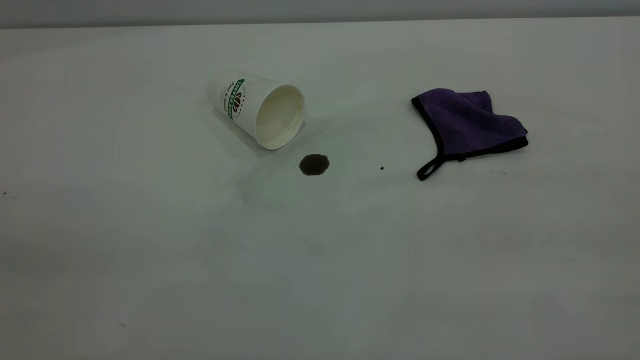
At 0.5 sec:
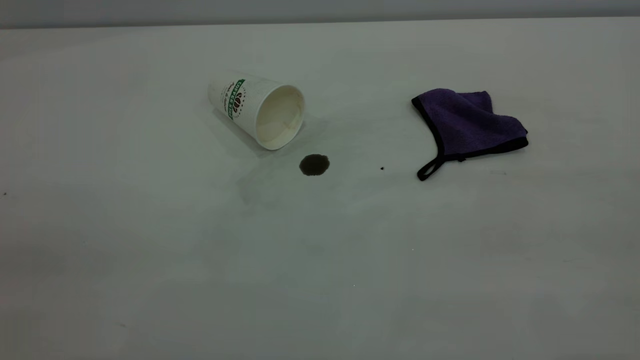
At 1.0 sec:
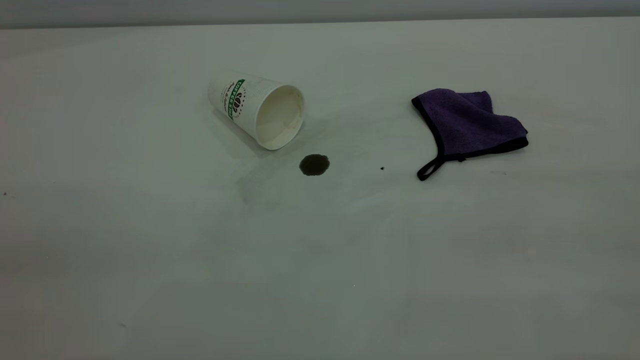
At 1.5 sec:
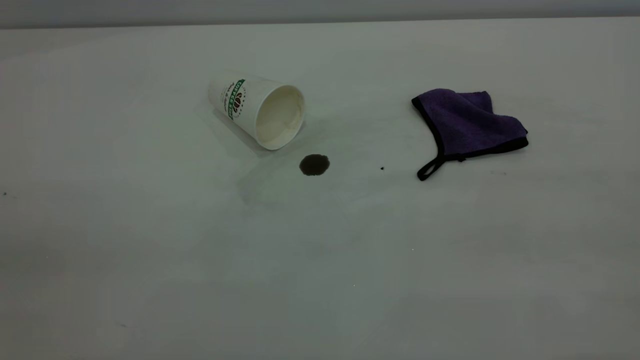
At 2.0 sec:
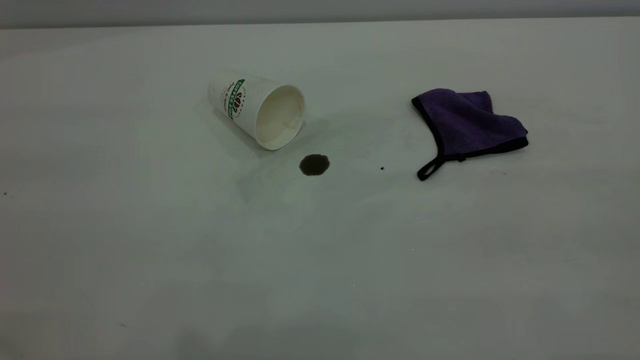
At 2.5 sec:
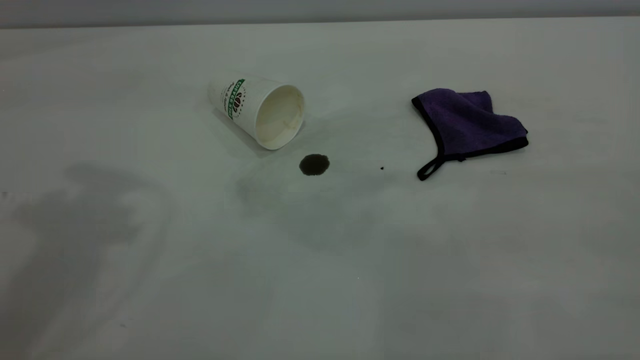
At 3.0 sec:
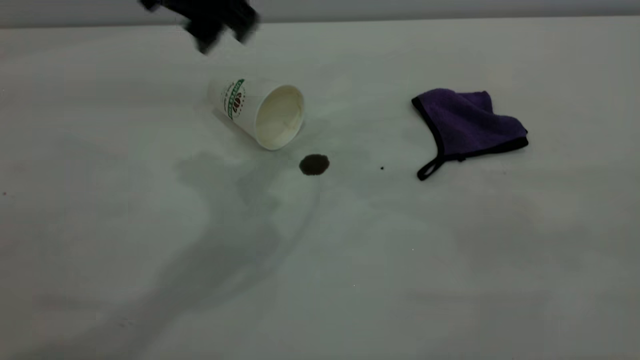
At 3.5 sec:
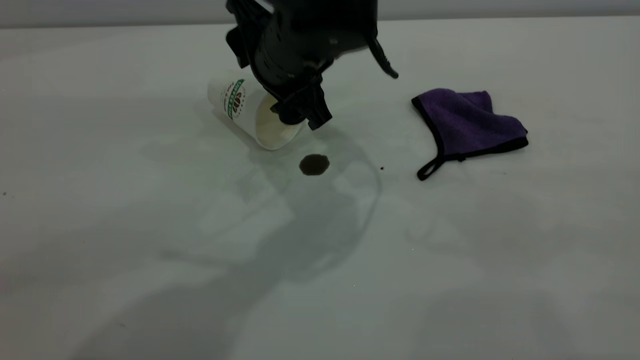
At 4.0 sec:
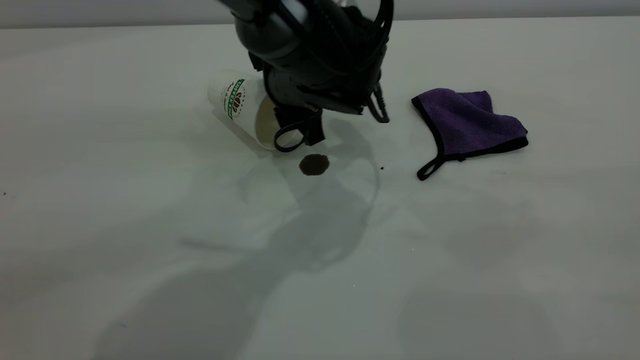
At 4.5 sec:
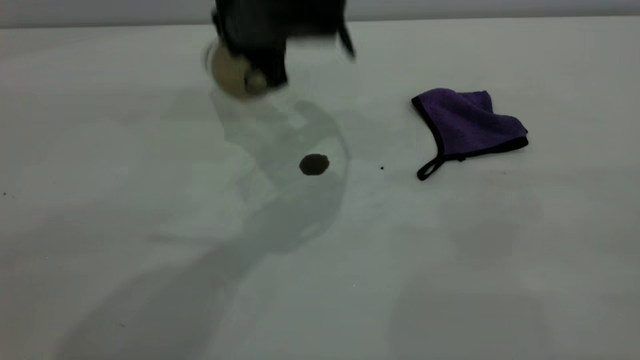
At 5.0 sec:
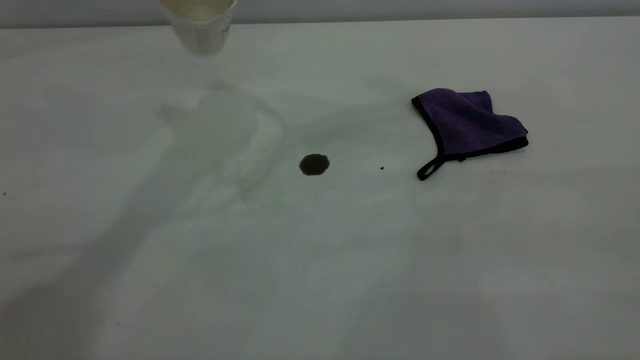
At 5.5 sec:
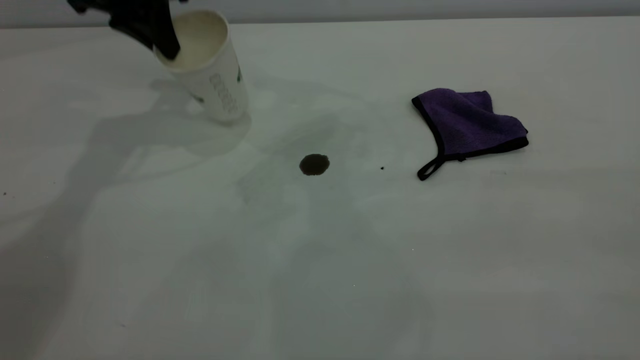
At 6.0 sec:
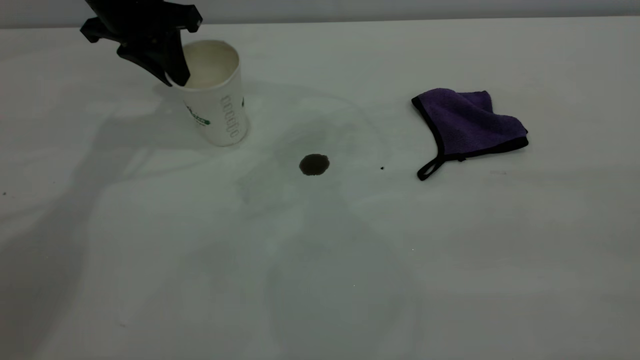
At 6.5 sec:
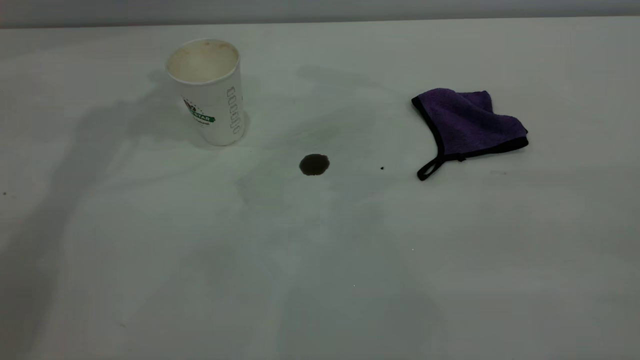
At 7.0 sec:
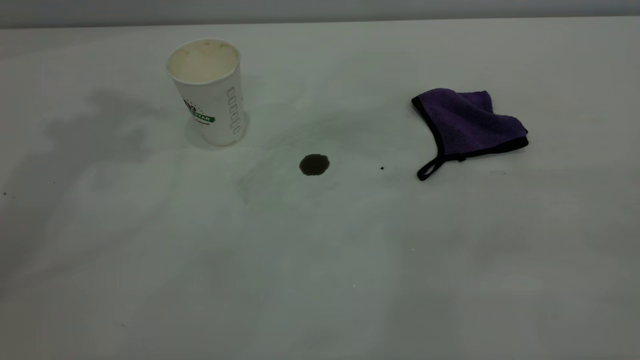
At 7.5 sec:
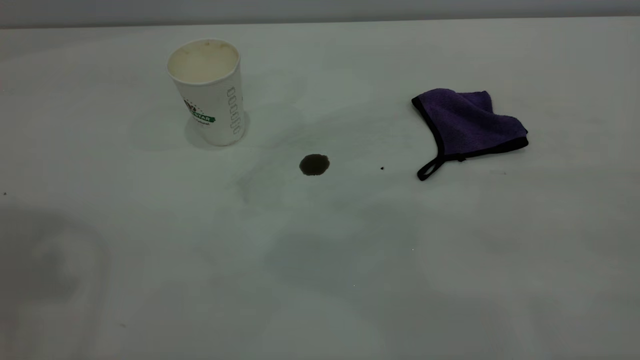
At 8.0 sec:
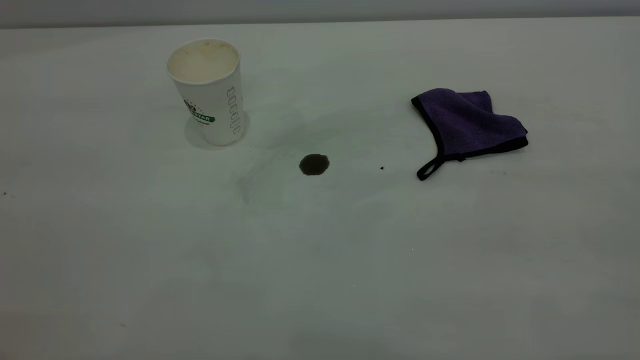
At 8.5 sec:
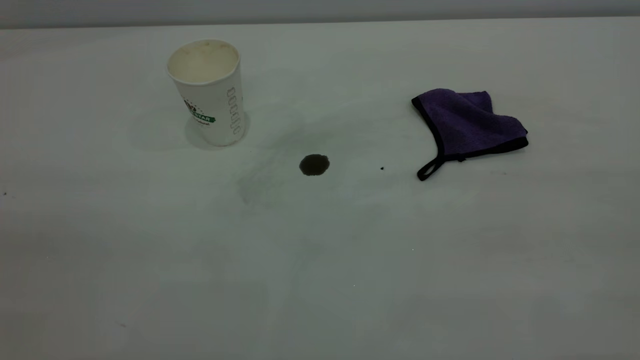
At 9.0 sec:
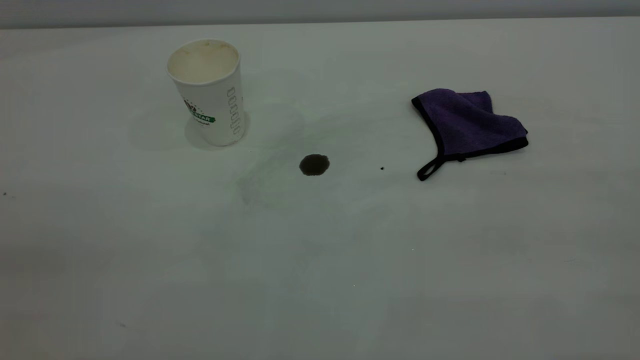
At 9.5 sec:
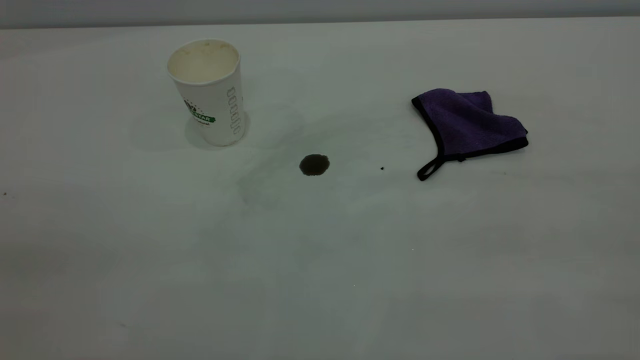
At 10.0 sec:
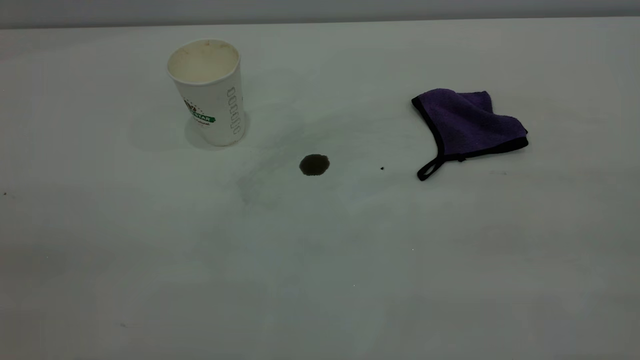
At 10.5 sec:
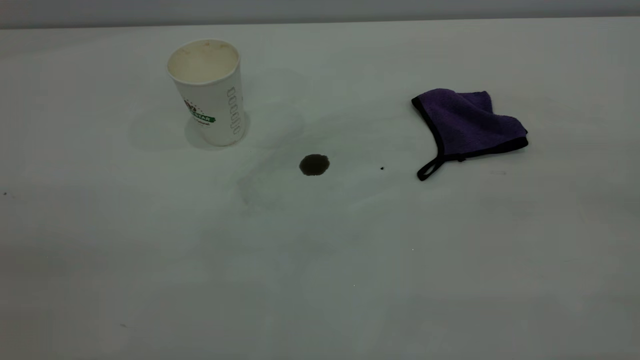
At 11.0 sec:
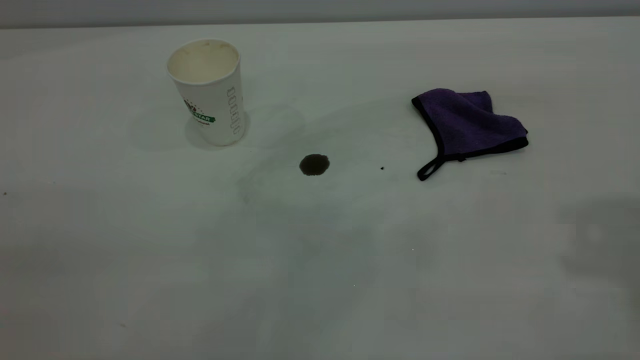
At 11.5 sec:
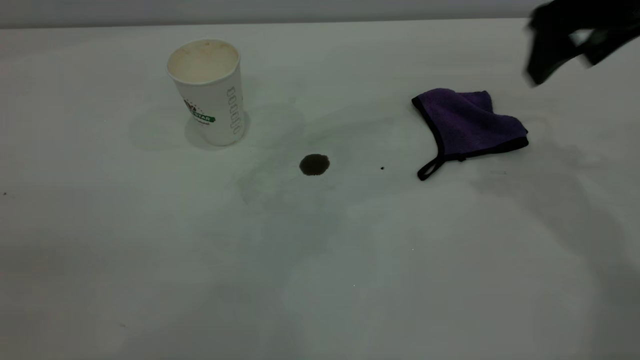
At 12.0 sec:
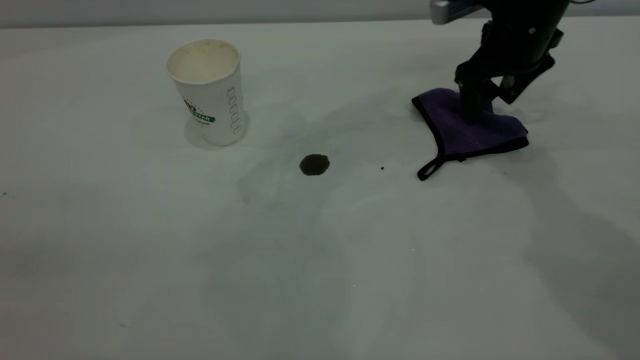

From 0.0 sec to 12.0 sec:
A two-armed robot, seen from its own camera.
Task of the whole recording: the left gripper pick up the fallen cup and place it upright, the right gripper grasp the purple rag and wipe the coffee stain on the table, the right gripper put the purple rag back in its original position.
Step, from 0.0 sec to 6.0 sec: Stand the paper cup upright.
From 2.0 sec to 4.0 sec: The left gripper goes roughly 50 cm downward, to the right and forward.
From 4.0 sec to 6.0 sec: The left gripper goes about 20 cm to the left and upward, and closes up.
From 6.0 sec to 8.0 sec: The left gripper goes approximately 50 cm backward and upward, and opens and closes again.
From 10.0 sec to 12.0 sec: The right gripper goes approximately 50 cm forward and downward, and opens.

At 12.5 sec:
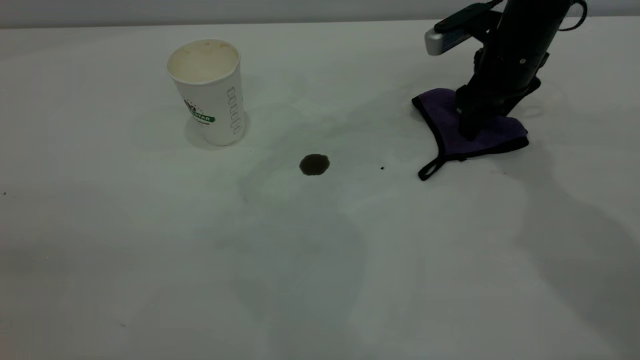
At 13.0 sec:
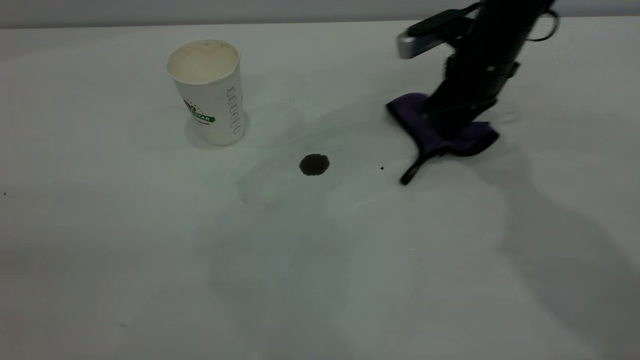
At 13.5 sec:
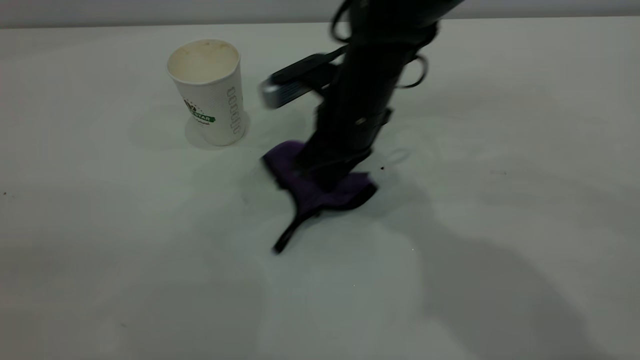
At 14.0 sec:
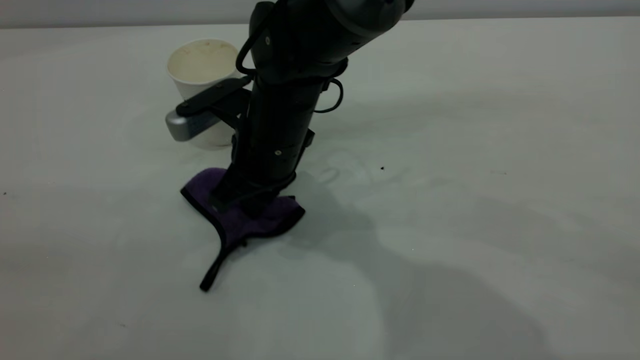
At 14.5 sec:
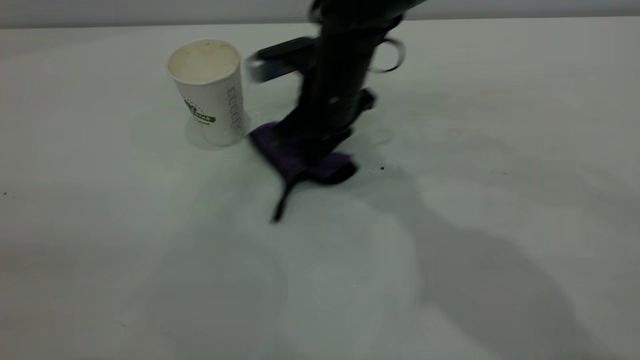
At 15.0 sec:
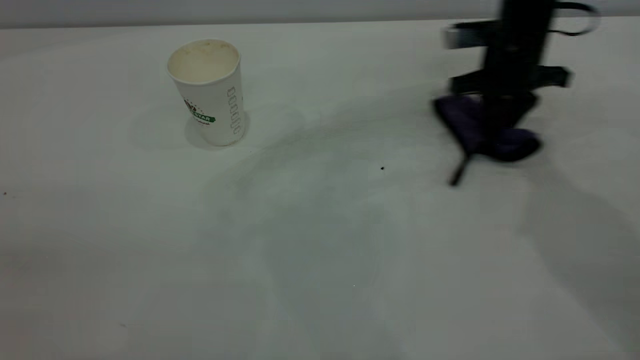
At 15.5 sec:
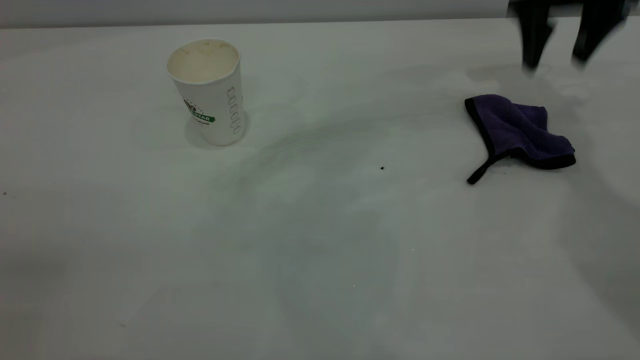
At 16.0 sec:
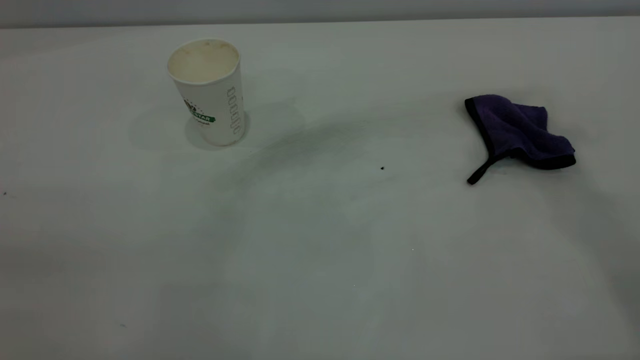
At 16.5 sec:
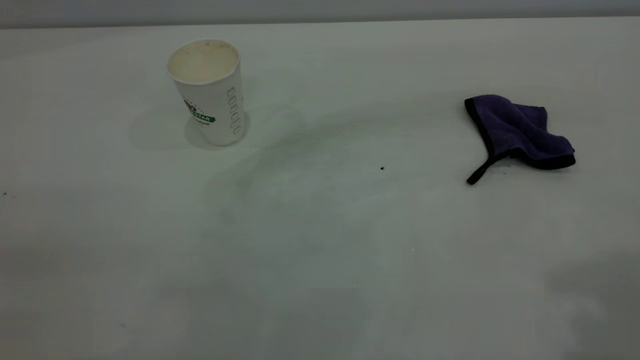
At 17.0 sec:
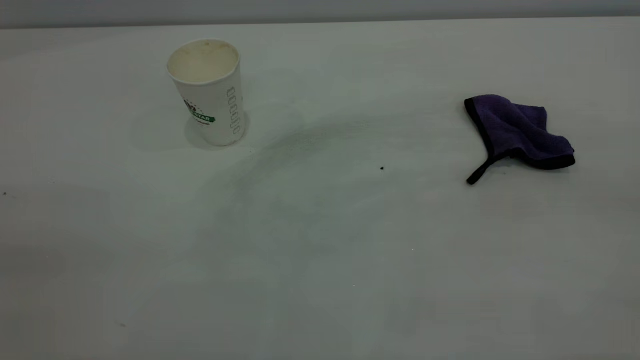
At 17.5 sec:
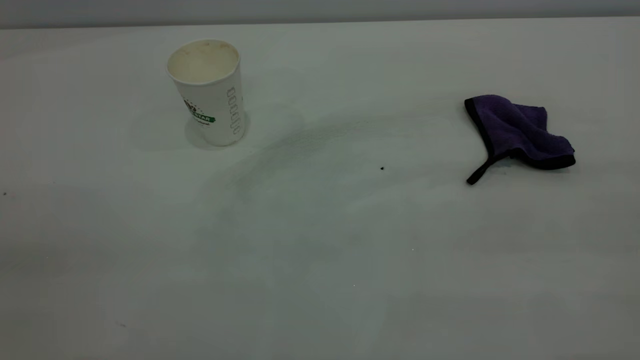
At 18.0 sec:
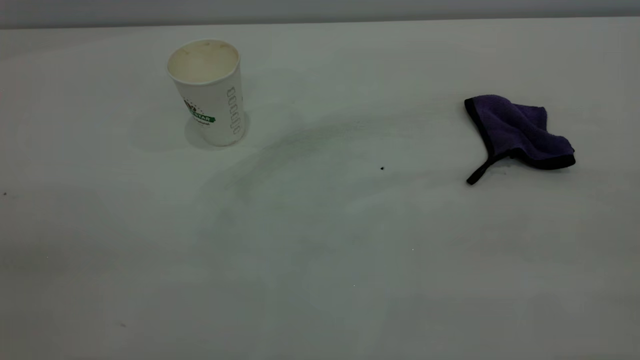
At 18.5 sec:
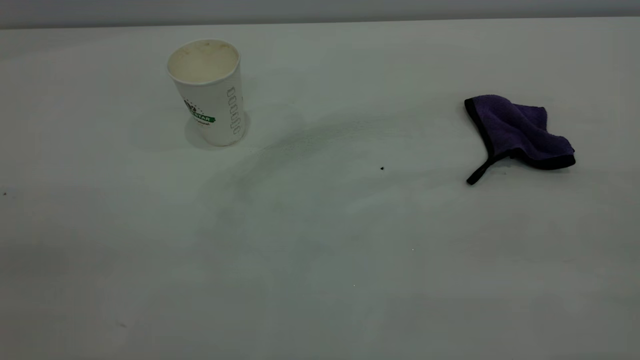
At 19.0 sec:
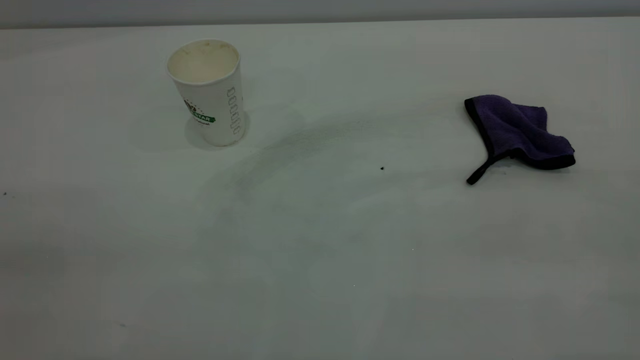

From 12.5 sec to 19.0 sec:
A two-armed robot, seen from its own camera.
Task of the whole recording: the left gripper pick up the fallen cup and place it upright, the right gripper grasp the purple rag and wipe the coffee stain on the table, the right gripper put the purple rag back in its original position.
Step, from 12.5 sec to 15.0 sec: Wipe the stains off the table with a rag.
From 12.5 sec to 14.5 sec: The right gripper moves to the left, approximately 20 cm, and closes up.
From 14.5 sec to 17.0 sec: The right gripper moves backward, upward and to the right, roughly 60 cm, and opens up.
